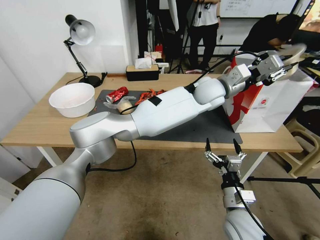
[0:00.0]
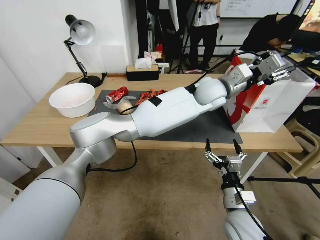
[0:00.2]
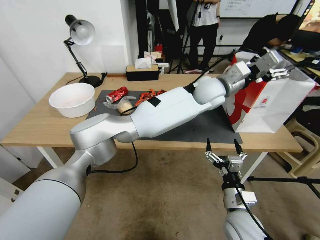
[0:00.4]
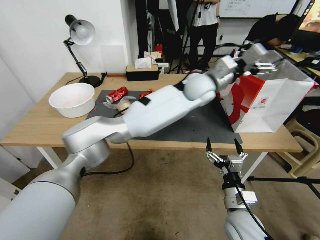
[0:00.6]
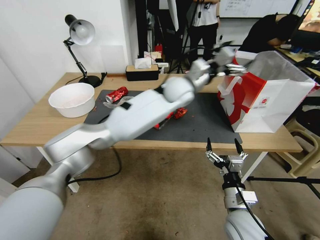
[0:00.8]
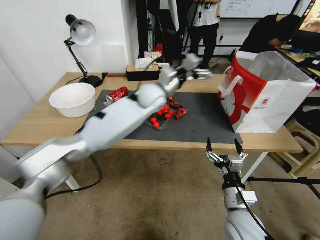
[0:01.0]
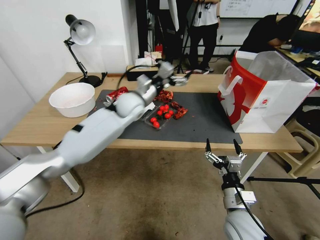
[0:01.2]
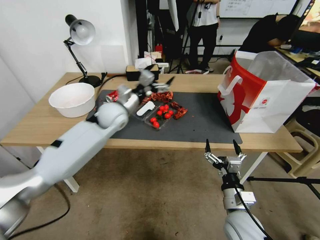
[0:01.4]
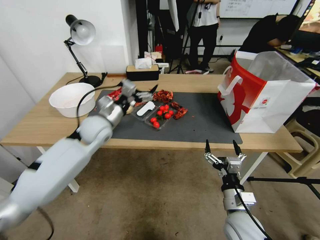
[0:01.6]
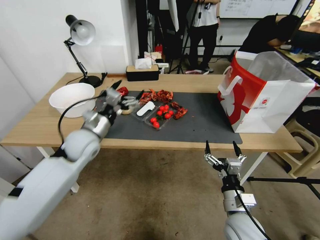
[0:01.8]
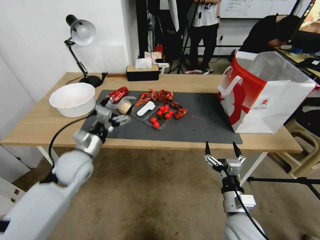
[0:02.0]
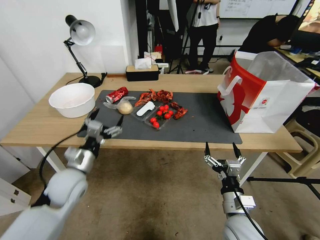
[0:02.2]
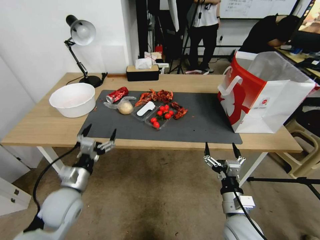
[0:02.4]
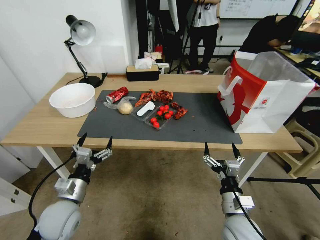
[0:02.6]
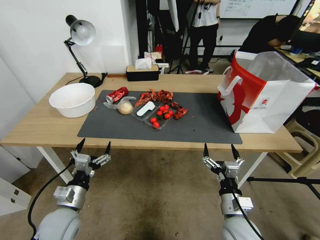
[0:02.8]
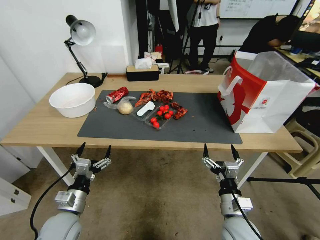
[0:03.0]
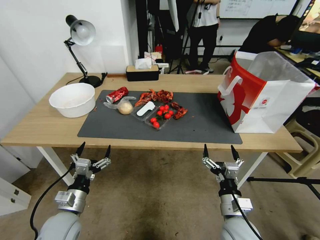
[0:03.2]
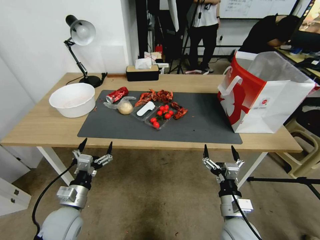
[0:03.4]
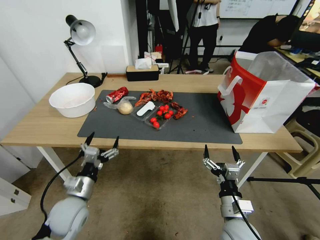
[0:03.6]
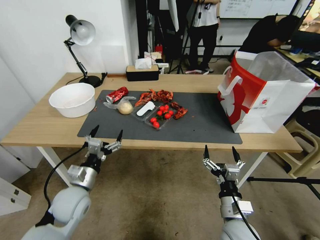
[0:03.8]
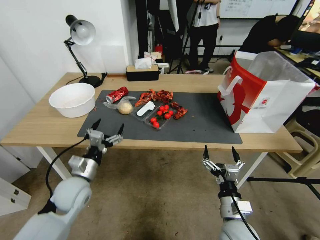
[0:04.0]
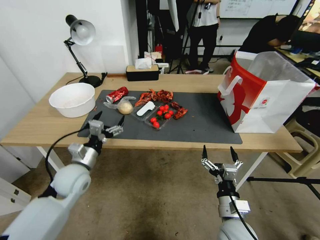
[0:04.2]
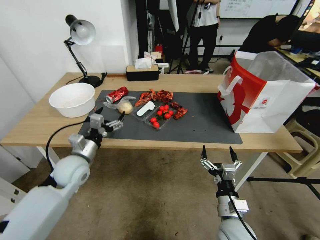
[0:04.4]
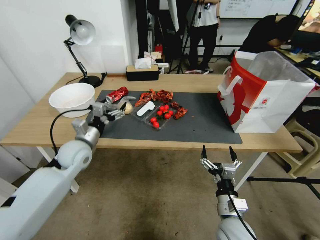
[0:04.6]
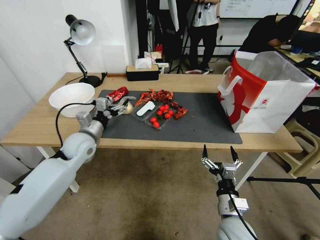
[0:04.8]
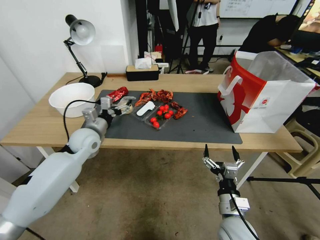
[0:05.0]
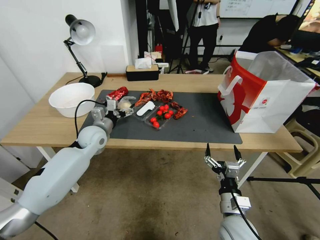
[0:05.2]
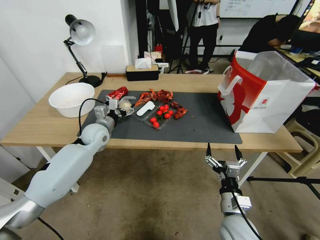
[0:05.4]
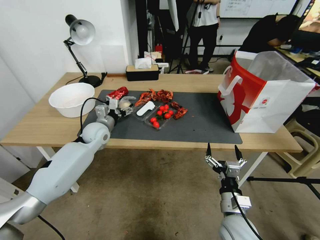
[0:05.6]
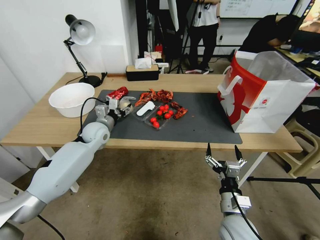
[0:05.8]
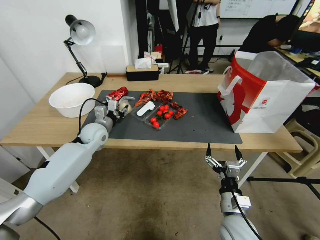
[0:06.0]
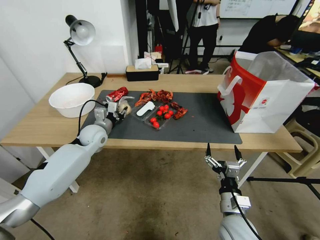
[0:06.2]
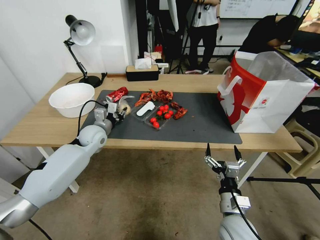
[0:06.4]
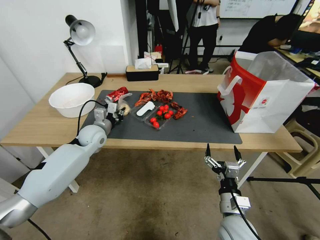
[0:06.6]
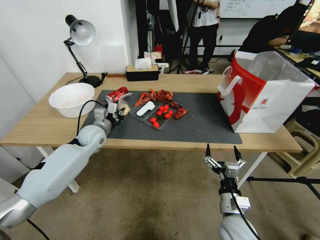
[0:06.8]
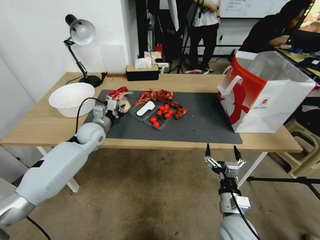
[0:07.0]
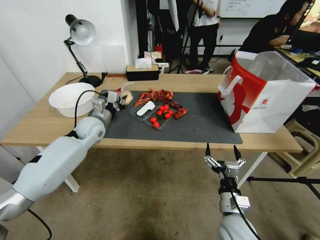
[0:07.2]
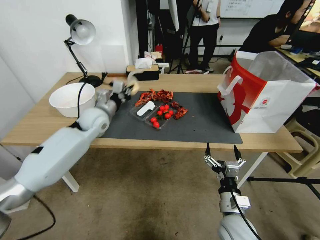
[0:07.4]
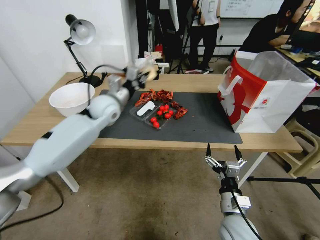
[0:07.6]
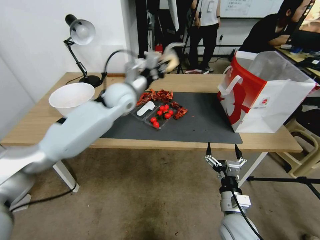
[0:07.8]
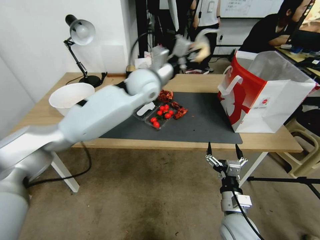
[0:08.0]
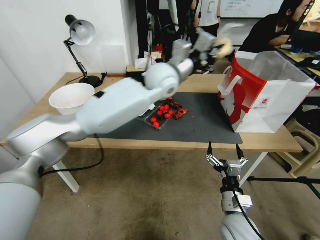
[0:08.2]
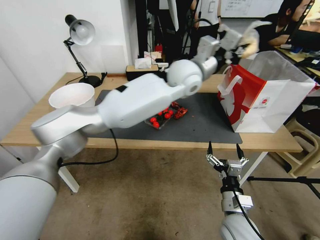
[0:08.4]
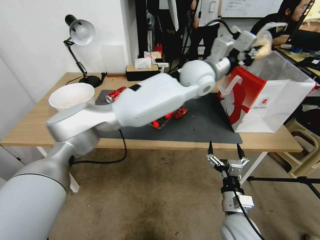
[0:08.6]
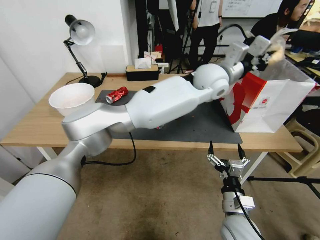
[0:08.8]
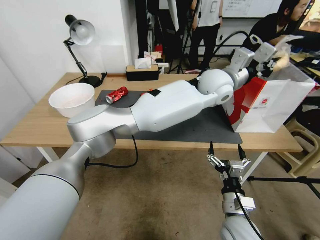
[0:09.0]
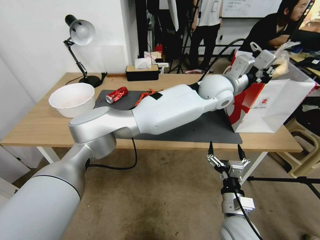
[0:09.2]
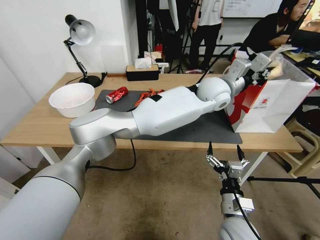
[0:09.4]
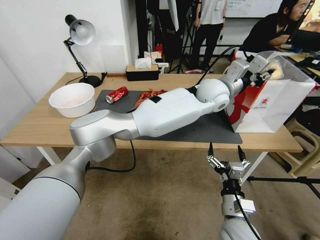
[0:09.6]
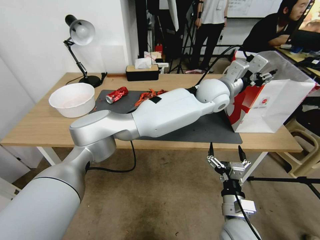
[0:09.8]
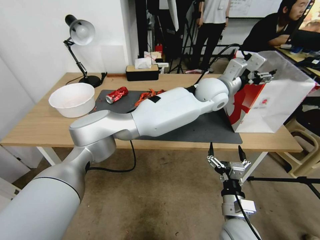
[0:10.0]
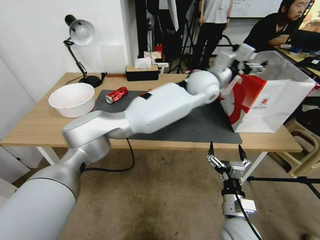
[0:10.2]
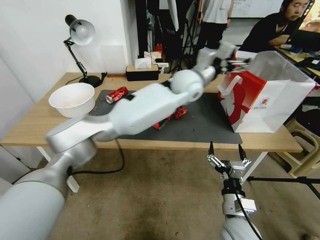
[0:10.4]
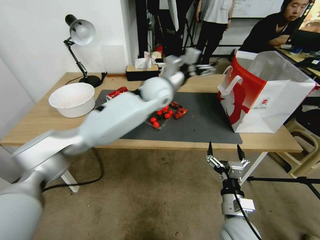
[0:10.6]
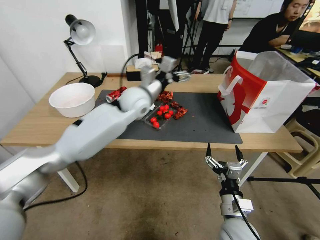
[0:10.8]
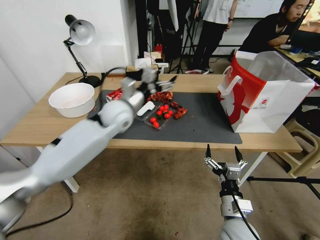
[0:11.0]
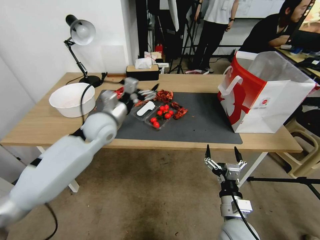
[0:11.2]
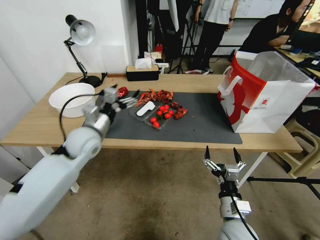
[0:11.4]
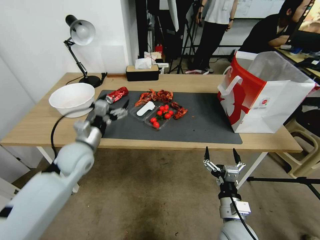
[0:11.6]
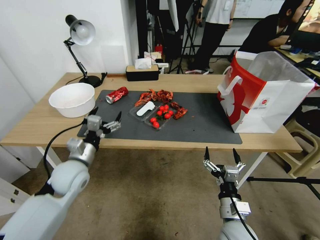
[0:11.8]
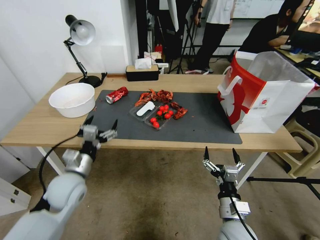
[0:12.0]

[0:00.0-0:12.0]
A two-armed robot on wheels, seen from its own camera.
0:00.0 to 0:01.6: The left gripper is displaced to the left by roughly 35 cm, and opens.
0:01.6 to 0:03.0: The left gripper moves backward and downward, roughly 30 cm.
0:03.0 to 0:04.4: The left gripper is displaced forward and upward by about 15 cm.
0:04.4 to 0:06.0: The left gripper shifts roughly 15 cm forward, and closes.
0:06.0 to 0:07.6: The left gripper moves upward and to the right, some 15 cm, and closes its fingers.
0:07.6 to 0:09.0: The left gripper moves to the right, about 35 cm.
0:09.0 to 0:10.4: The left gripper opens up.
0:10.4 to 0:12.0: The left gripper travels to the left, backward and downward by some 50 cm.

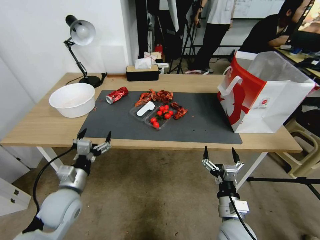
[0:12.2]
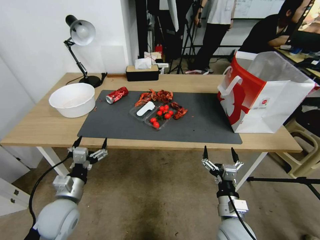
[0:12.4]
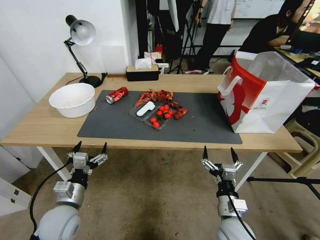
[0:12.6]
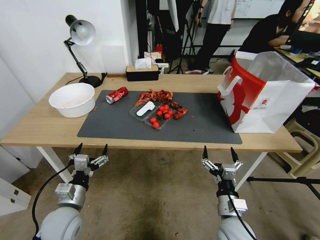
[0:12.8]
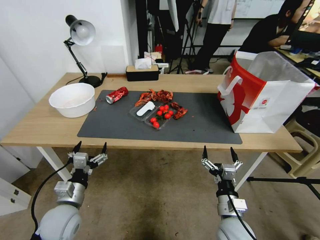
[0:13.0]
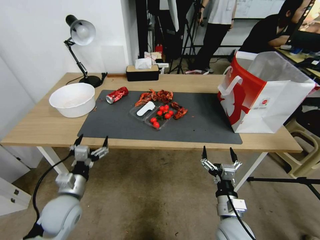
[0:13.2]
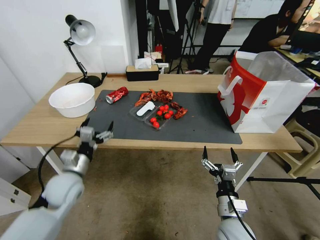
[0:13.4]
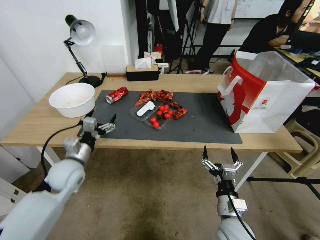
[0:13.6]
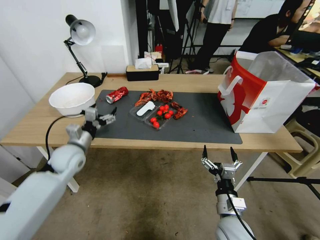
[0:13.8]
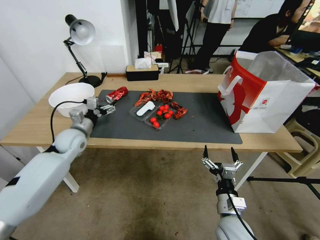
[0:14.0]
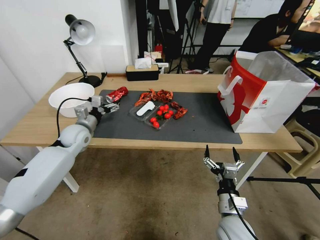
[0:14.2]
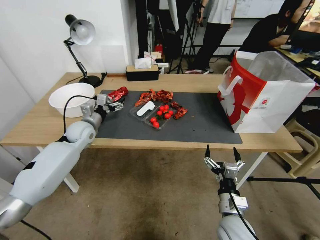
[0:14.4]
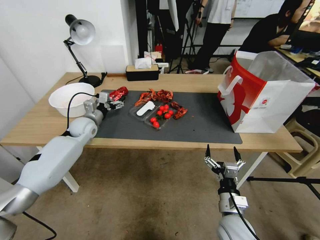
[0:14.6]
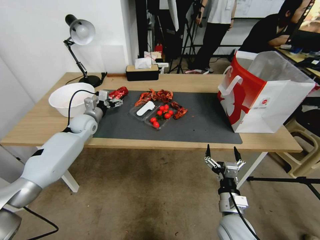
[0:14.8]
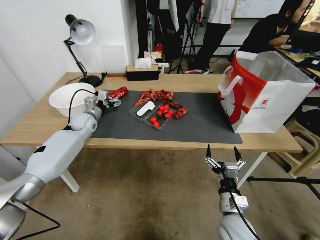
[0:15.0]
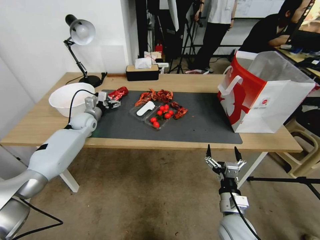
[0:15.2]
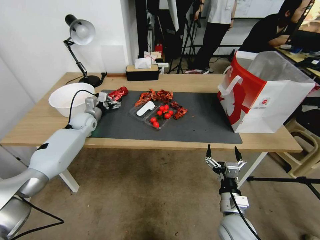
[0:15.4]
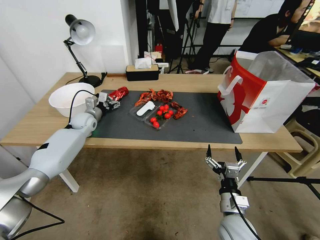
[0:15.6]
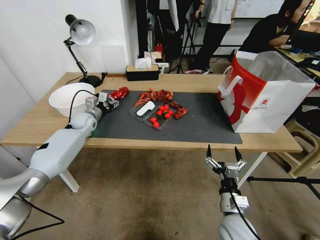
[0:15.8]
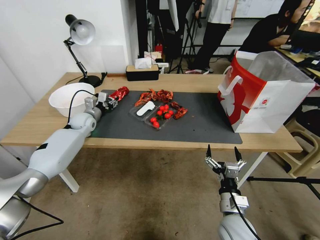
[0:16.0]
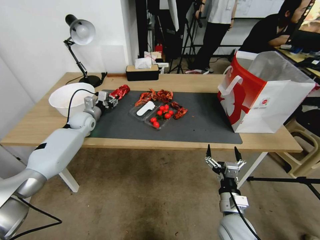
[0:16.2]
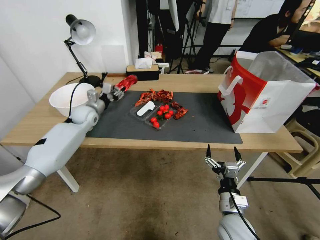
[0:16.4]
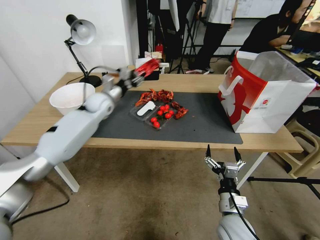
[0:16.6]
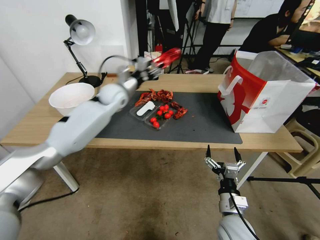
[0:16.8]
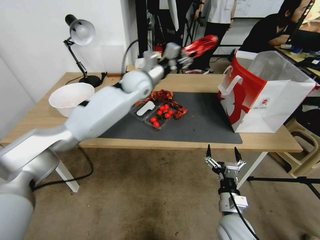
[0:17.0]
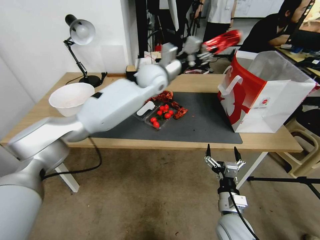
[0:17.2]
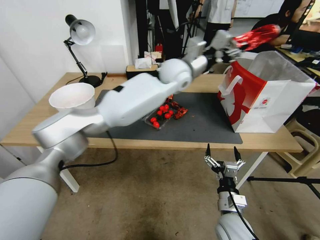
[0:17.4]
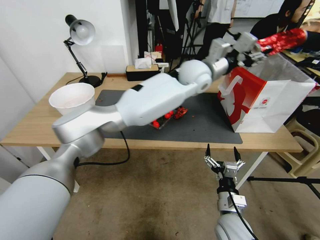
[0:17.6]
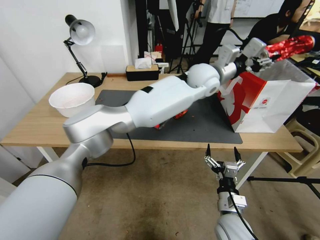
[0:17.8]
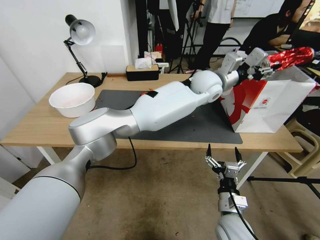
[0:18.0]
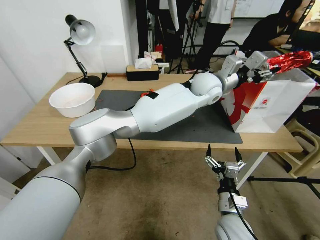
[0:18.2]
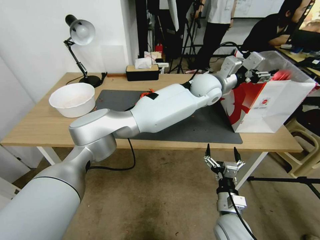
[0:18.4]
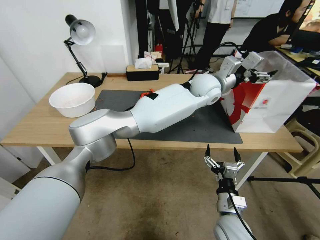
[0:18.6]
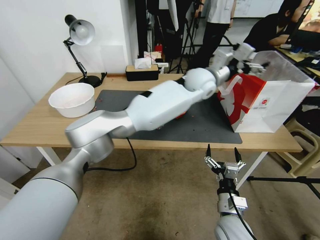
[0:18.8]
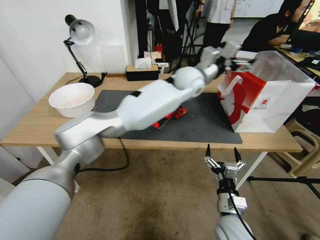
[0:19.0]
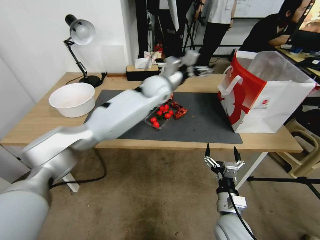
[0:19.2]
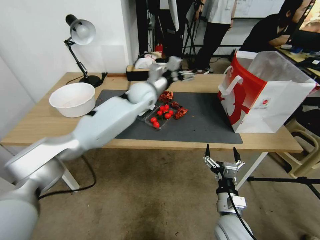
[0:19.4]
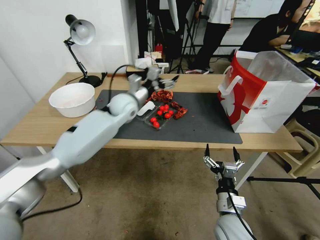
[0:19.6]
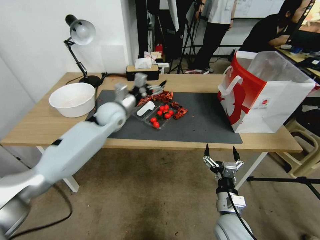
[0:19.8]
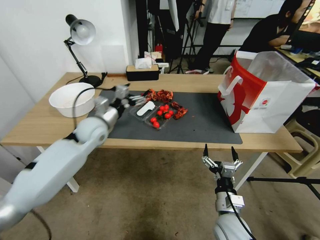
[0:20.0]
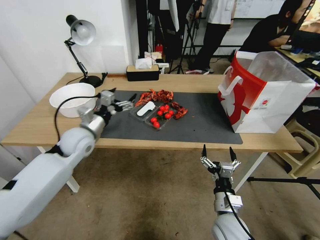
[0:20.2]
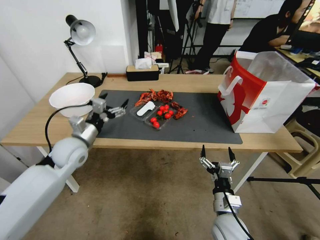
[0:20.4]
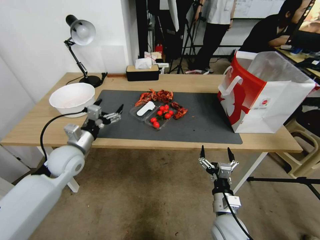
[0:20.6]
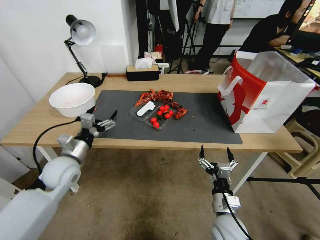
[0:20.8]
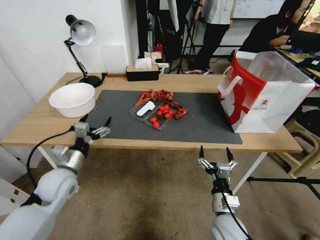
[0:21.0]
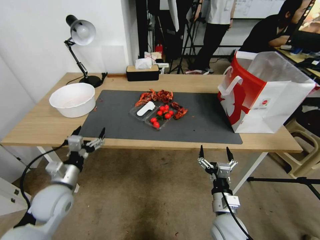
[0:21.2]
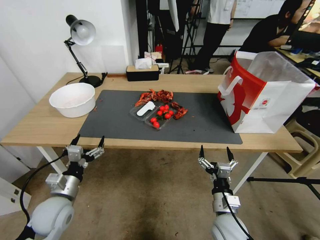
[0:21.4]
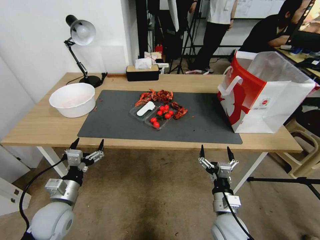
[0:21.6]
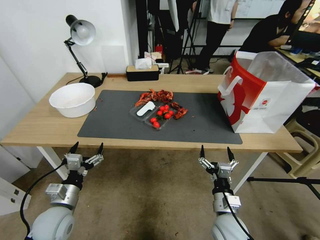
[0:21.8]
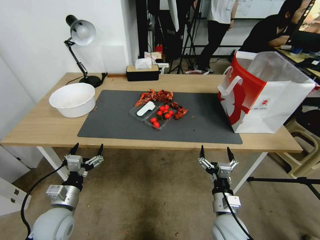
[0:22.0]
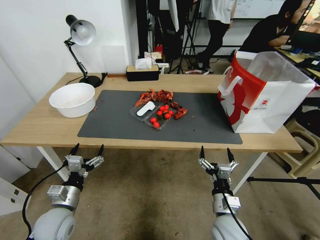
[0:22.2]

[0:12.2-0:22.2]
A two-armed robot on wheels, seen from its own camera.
0:12.2 to 0:13.6: The left gripper shifts about 10 cm forward.
0:13.6 to 0:15.0: The left gripper is displaced forward by roughly 20 cm.
0:15.0 to 0:16.4: The left gripper closes up.
0:16.4 to 0:18.0: The left gripper goes about 50 cm to the right and upward.
0:18.0 to 0:19.4: The left gripper heads to the left, covering roughly 25 cm, and opens up.
0:19.4 to 0:20.8: The left gripper is displaced backward, to the left and downward by some 35 cm.
0:20.8 to 0:22.2: The left gripper is displaced backward and downward by roughly 15 cm.
